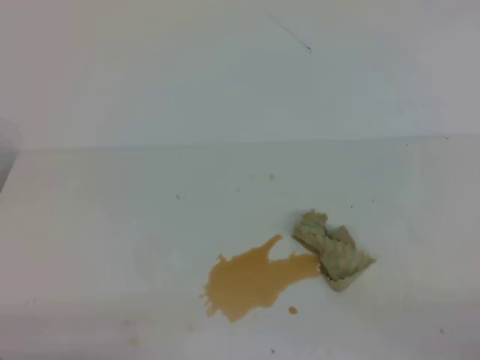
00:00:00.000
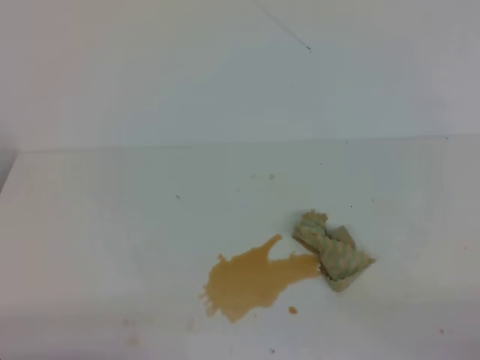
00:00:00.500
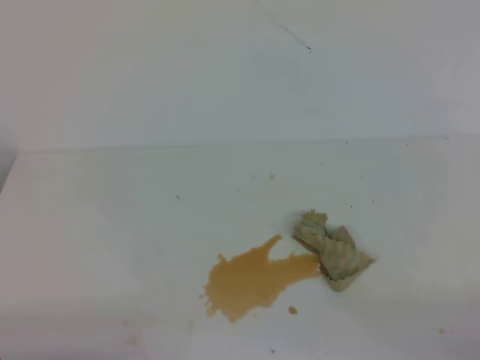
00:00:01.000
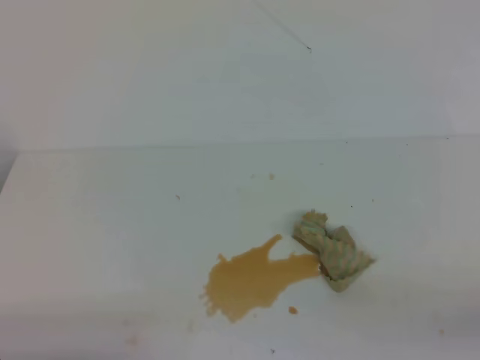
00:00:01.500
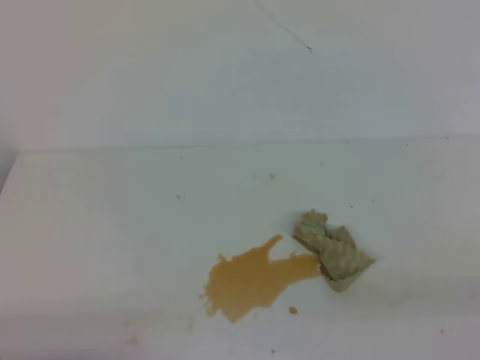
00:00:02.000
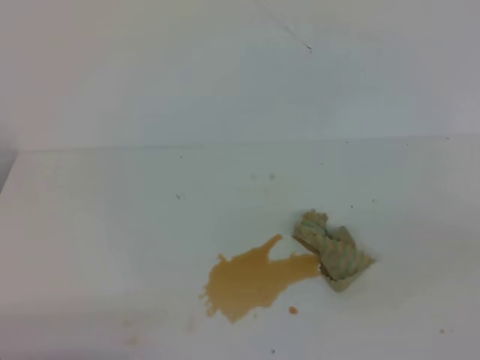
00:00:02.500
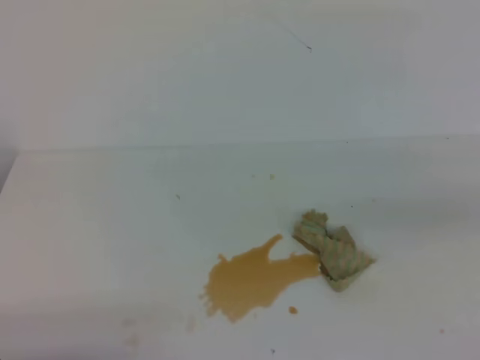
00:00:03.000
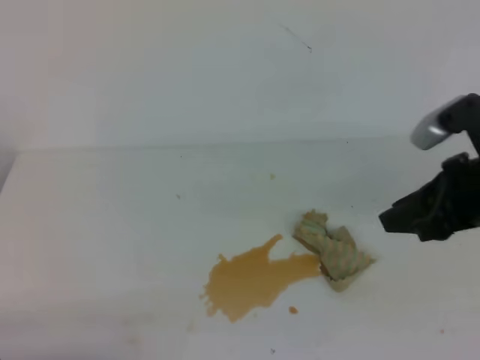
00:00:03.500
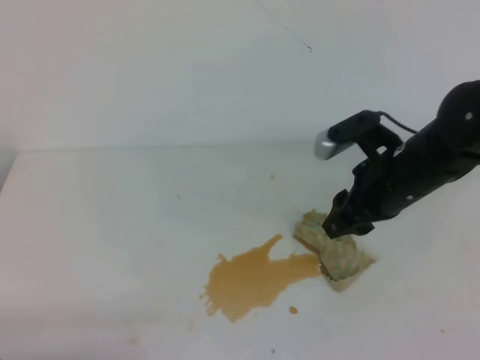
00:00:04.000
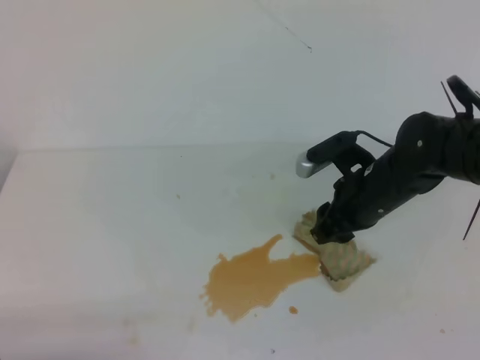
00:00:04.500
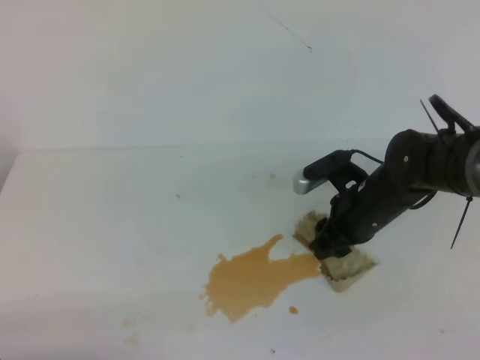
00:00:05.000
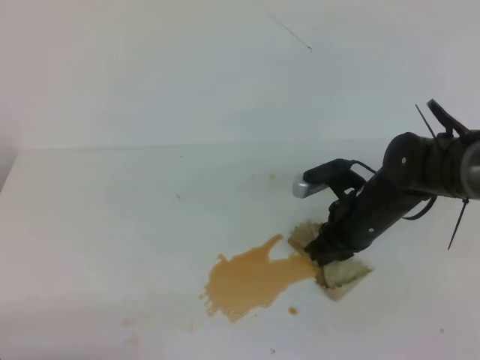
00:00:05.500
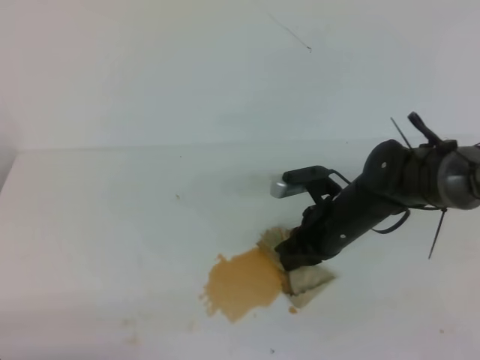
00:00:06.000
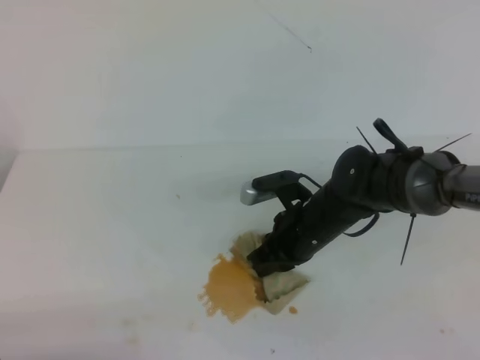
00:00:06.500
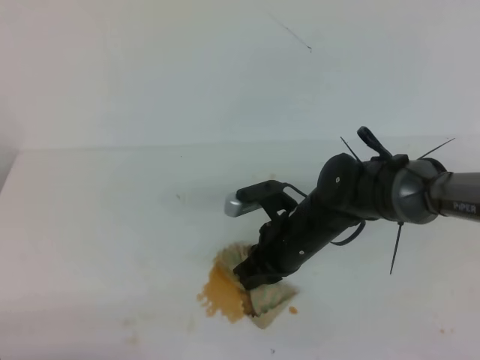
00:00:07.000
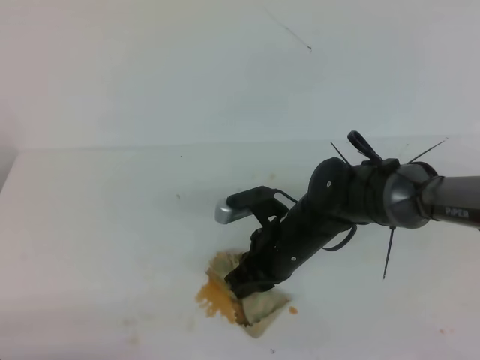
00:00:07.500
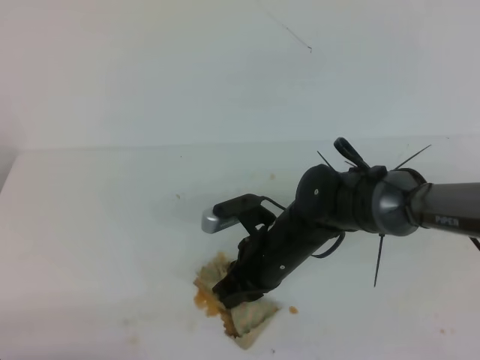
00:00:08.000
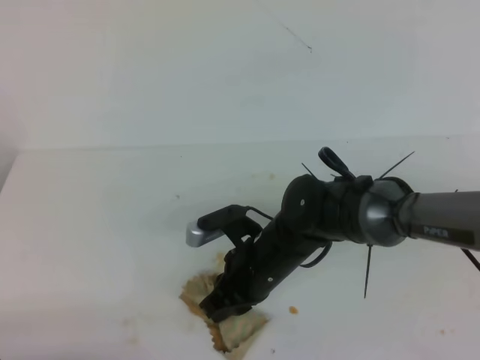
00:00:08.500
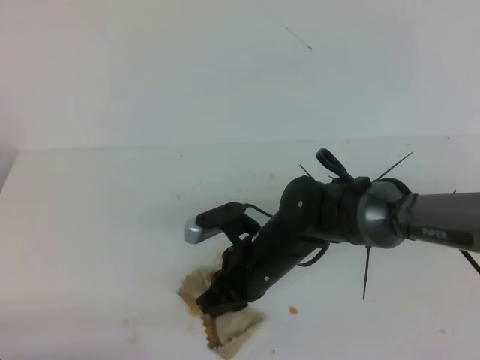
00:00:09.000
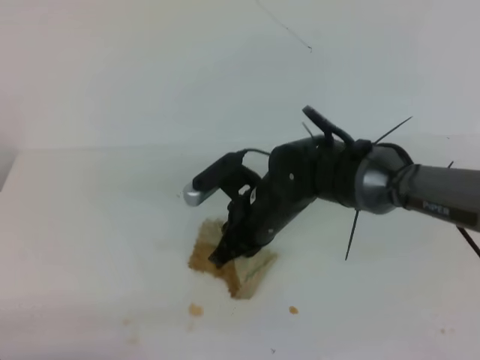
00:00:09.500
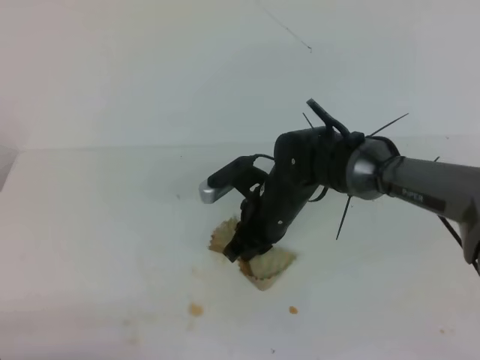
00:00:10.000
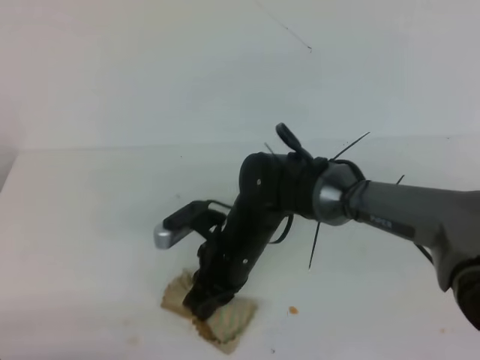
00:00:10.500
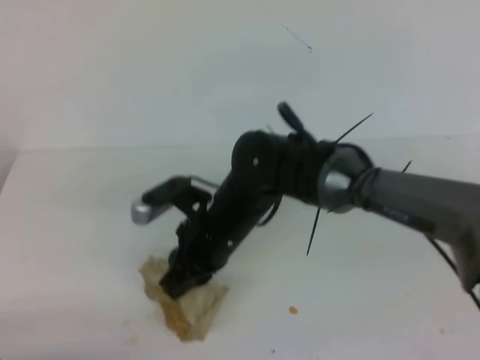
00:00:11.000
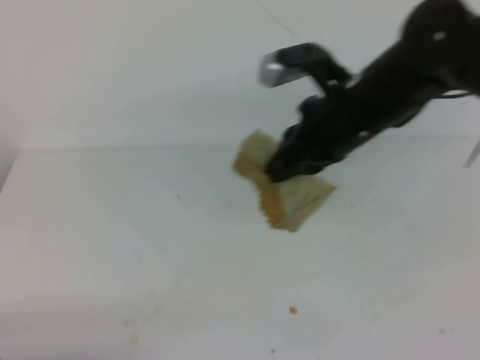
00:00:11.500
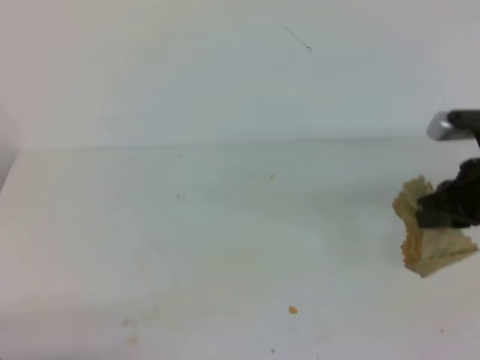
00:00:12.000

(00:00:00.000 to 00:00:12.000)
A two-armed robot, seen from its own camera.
00:00:02.000 - 00:00:04.000: The right gripper moves forward and to the left, roughly 35 cm, and opens up.
00:00:04.000 - 00:00:06.000: The right gripper shifts some 10 cm downward and to the left, and closes its fingers.
00:00:06.000 - 00:00:08.000: The right gripper is displaced to the left by some 10 cm.
00:00:08.000 - 00:00:10.000: The right gripper moves forward, about 5 cm.
00:00:10.000 - 00:00:12.000: The right gripper moves to the right, approximately 25 cm.

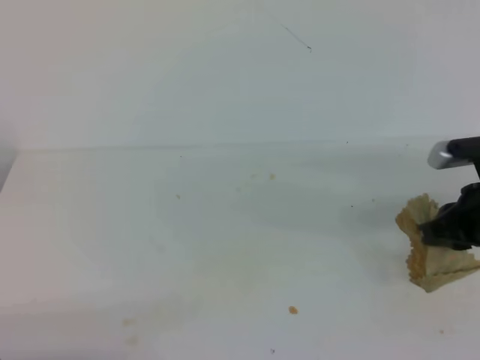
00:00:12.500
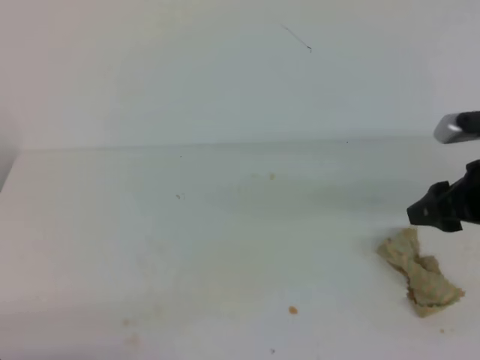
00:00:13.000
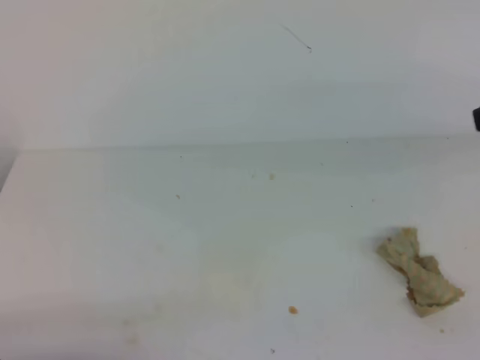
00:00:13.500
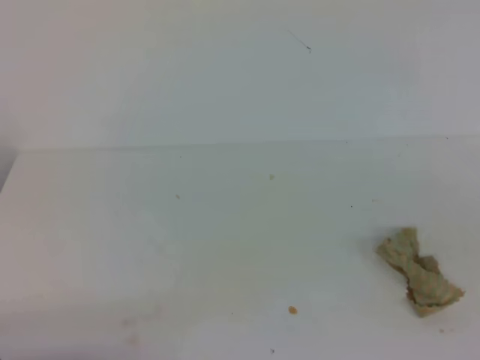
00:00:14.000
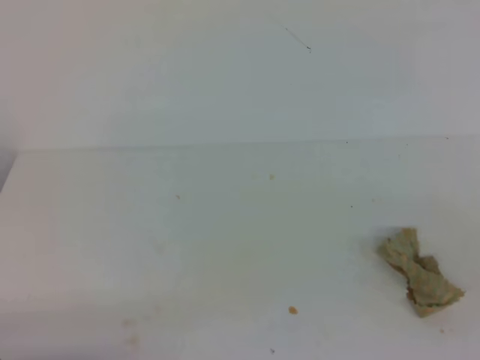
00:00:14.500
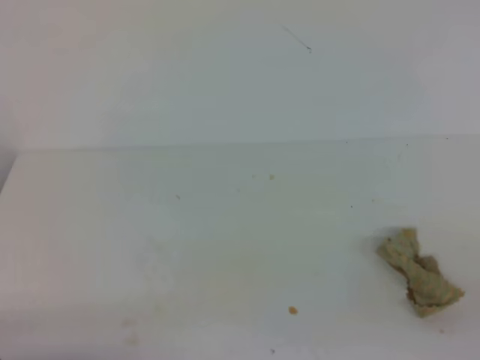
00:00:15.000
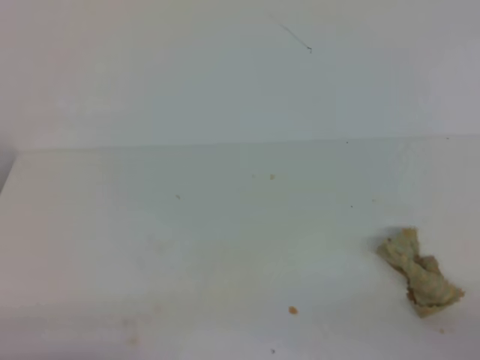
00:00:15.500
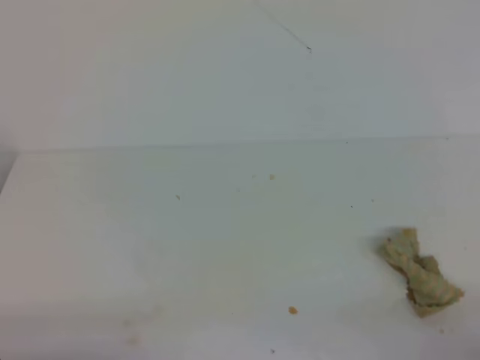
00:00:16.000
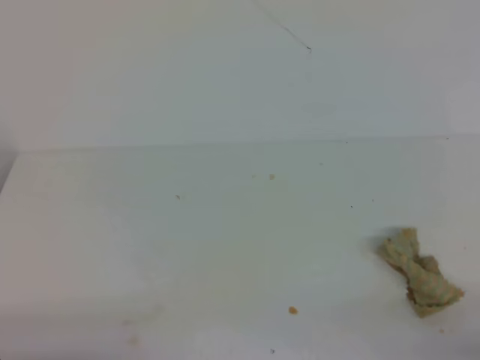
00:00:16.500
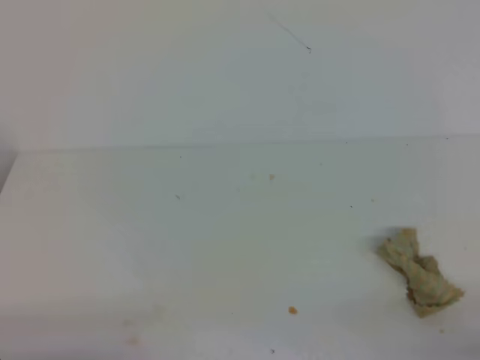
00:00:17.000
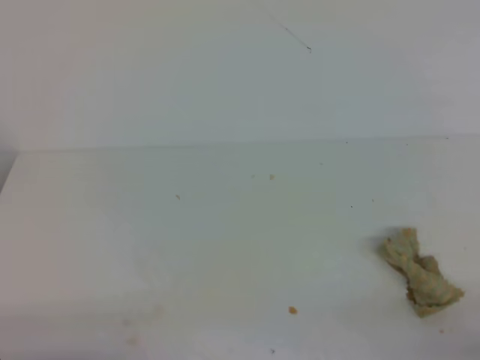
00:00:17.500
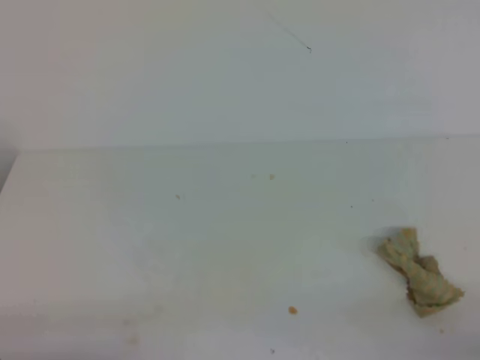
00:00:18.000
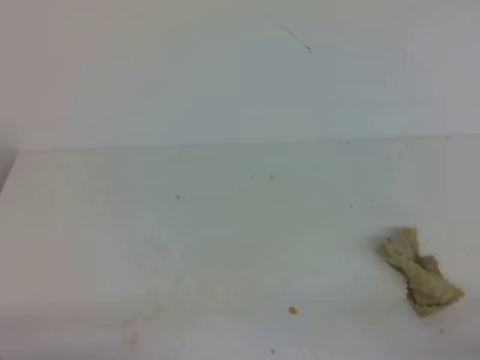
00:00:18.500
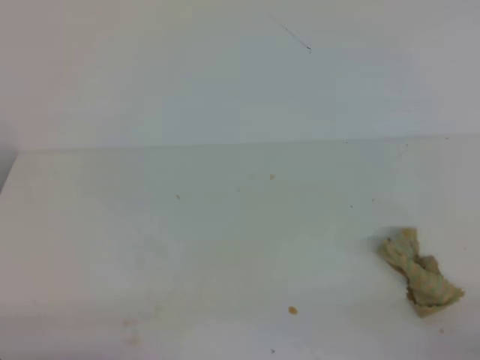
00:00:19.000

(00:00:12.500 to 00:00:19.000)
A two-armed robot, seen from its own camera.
00:00:12.500 - 00:00:14.500: The right gripper shifts about 25 cm backward and upward, and opens, then closes again.
00:00:17.000 - 00:00:19.000: Both grippers stay about where they are.
